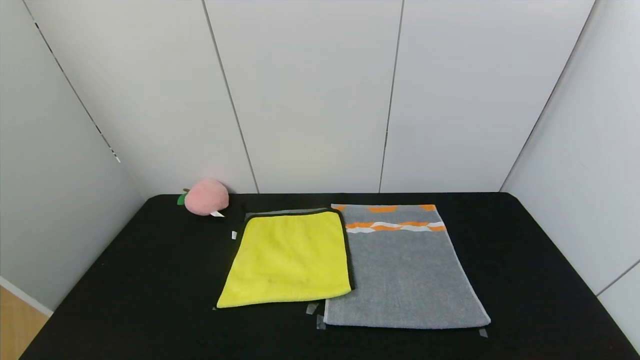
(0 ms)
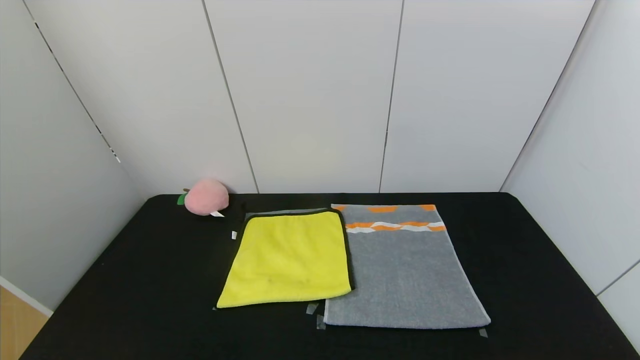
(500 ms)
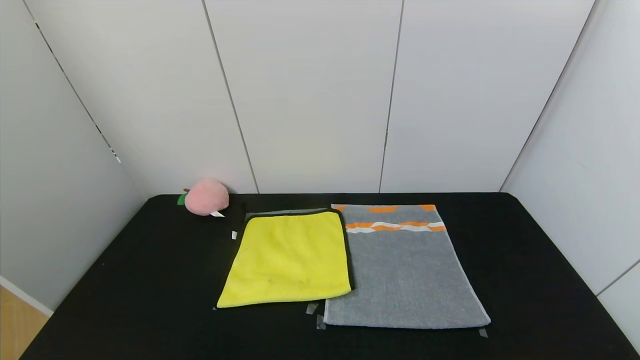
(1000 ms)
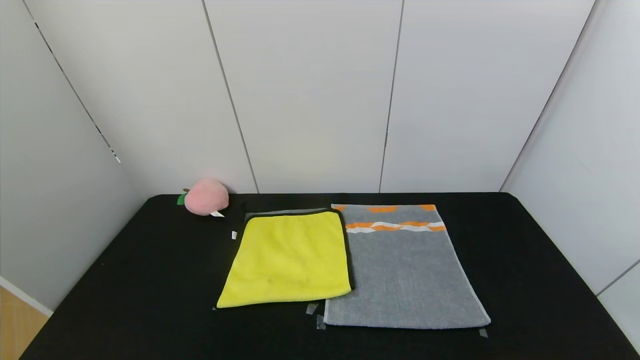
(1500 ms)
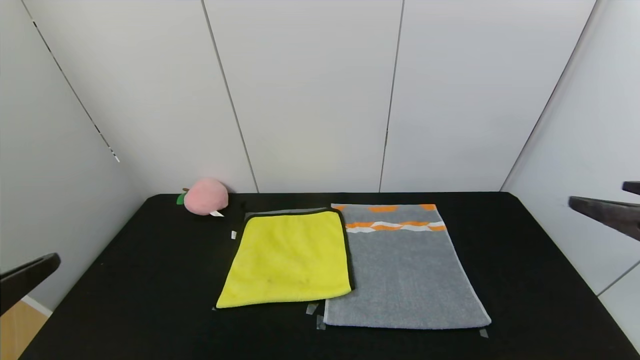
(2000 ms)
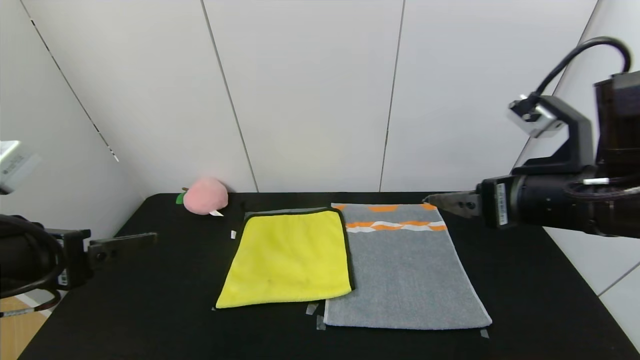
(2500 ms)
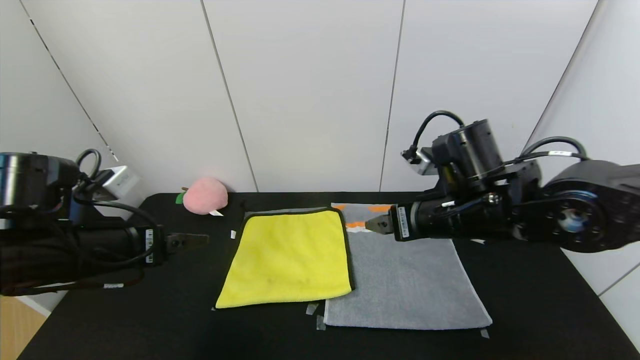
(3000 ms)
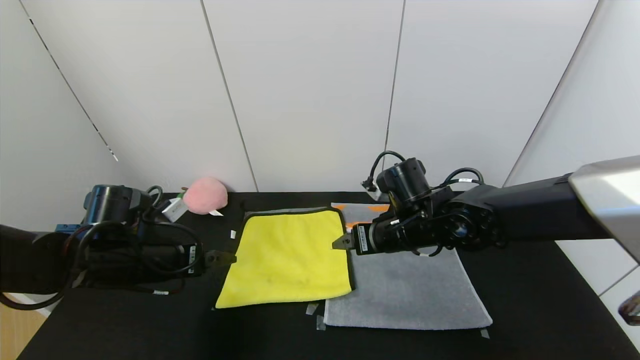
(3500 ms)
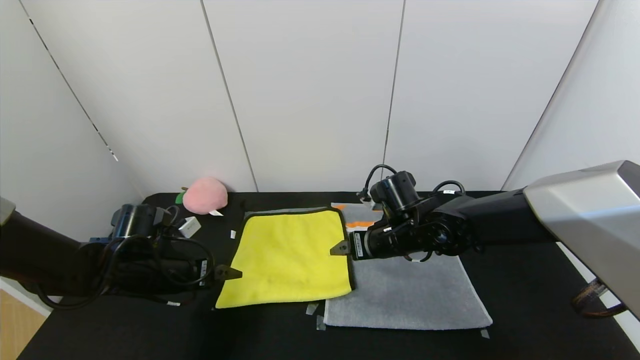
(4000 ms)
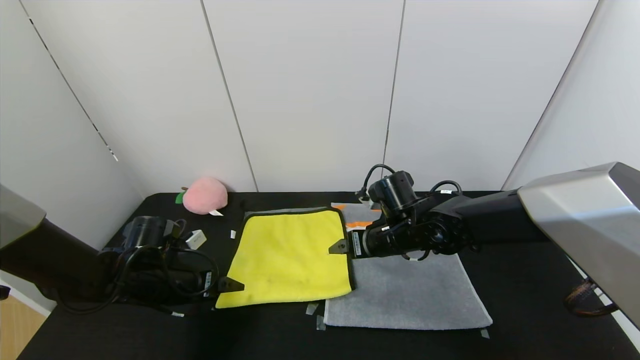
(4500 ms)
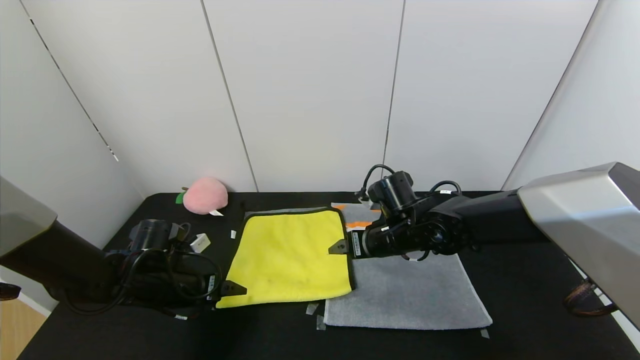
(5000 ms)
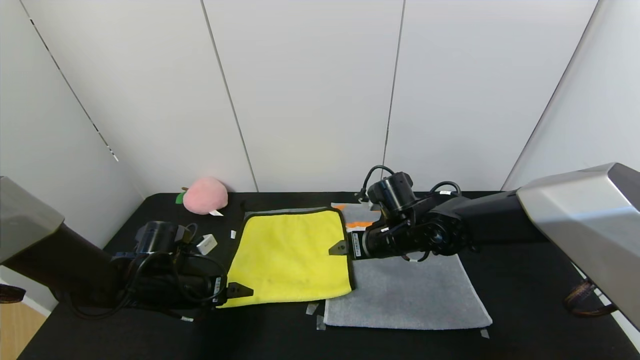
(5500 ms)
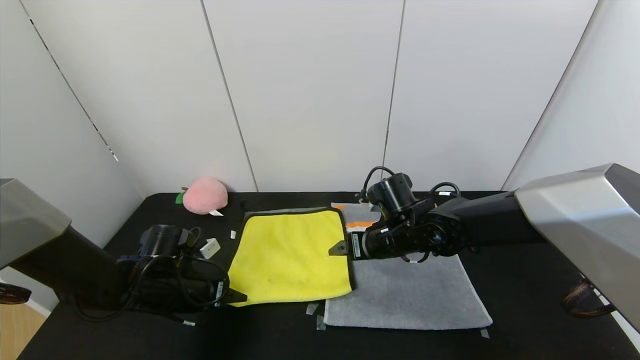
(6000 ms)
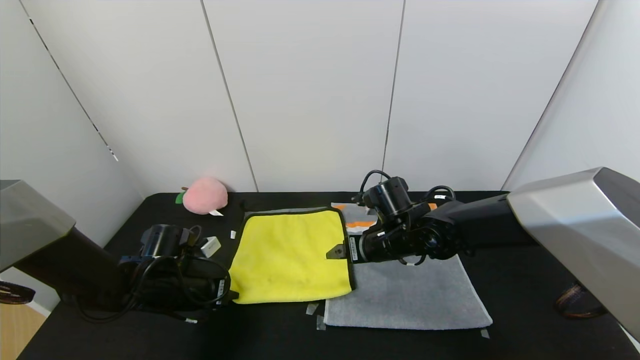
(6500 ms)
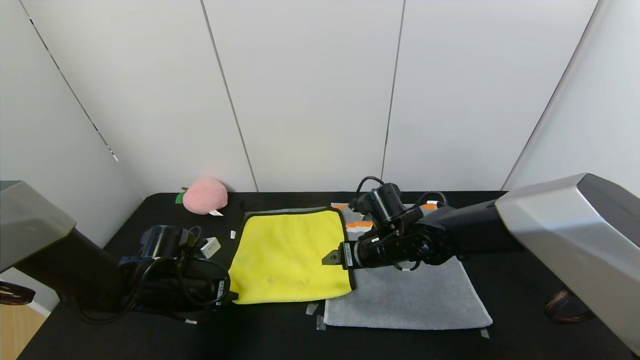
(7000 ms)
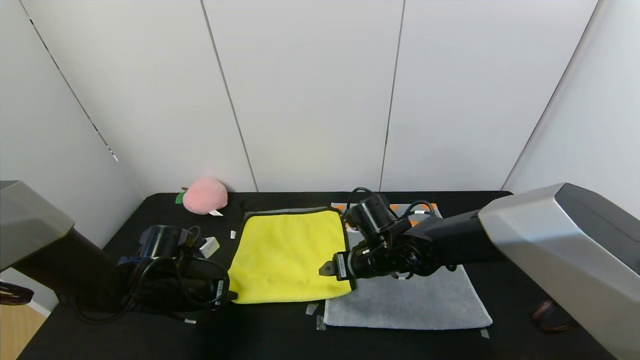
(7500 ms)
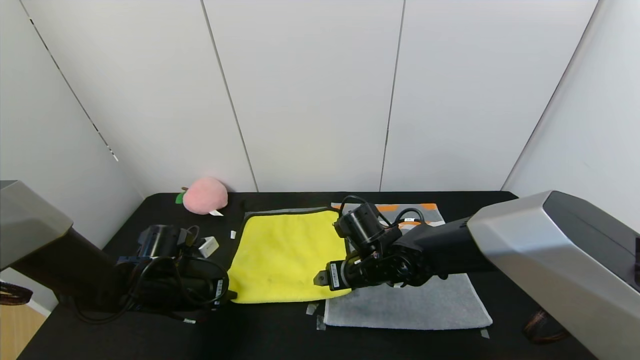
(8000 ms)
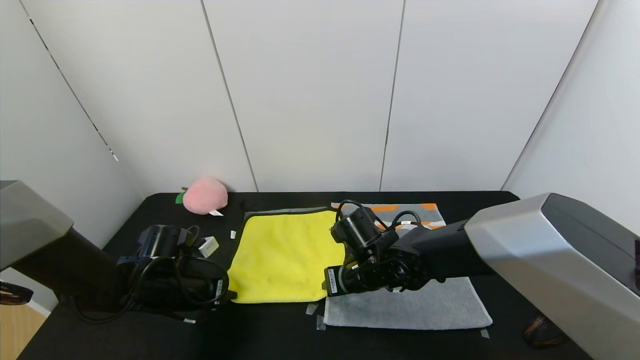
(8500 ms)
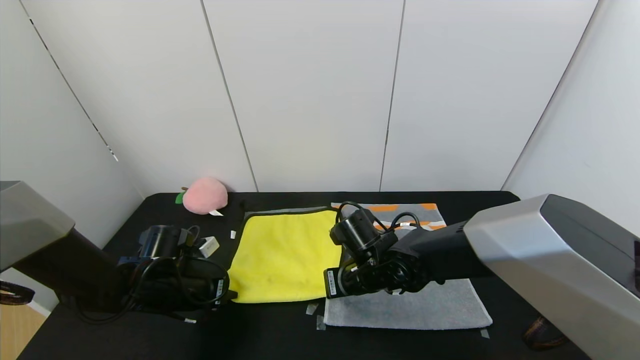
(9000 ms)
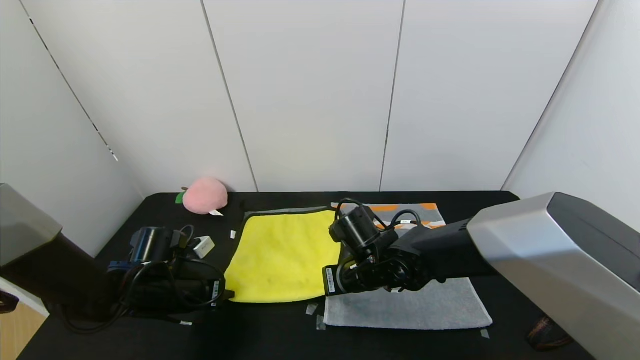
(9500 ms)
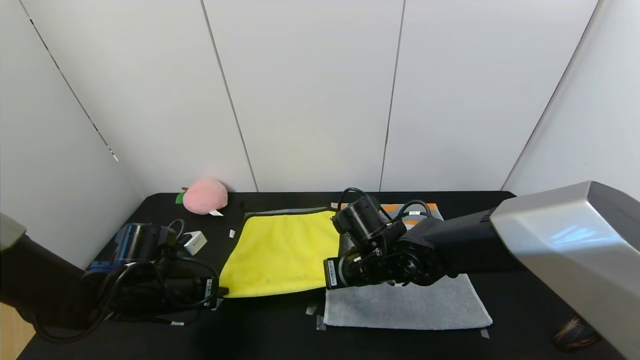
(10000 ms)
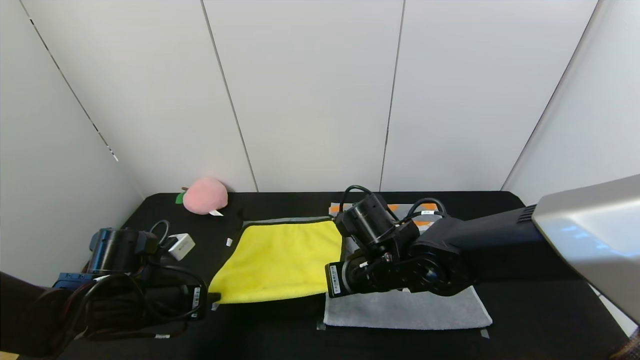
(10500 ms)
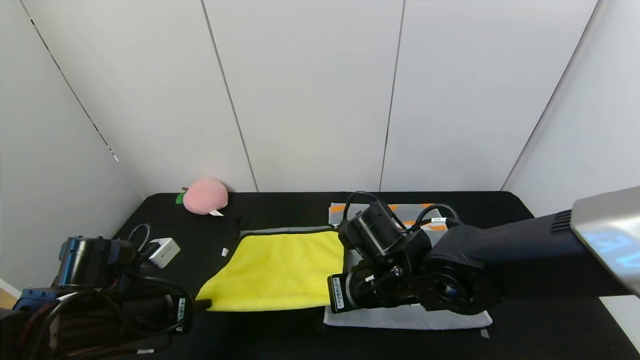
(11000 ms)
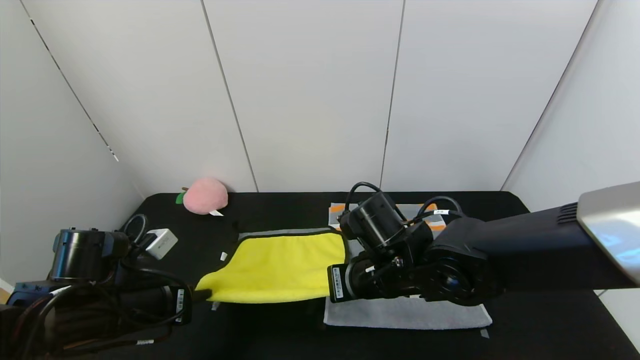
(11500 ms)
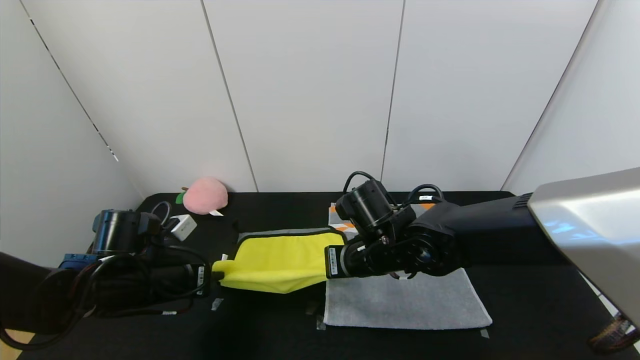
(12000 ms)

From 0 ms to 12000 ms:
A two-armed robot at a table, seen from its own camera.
Task of the whole recording: Use the gripper to fold the yellow towel and grey towel in half twice,then put the yellow towel on the grey towel.
From 0 ms to 2000 ms: The grippers both shift upward and forward by about 25 cm.
From 2000 ms to 4000 ms: The left gripper moves forward and downward, some 30 cm. The right gripper moves forward, to the left and downward, approximately 35 cm.
From 4000 ms to 6000 ms: The left gripper closes.
From 6000 ms to 8000 ms: The left gripper closes up; the right gripper moves approximately 5 cm.
From 8000 ms to 10000 ms: The right gripper closes up.

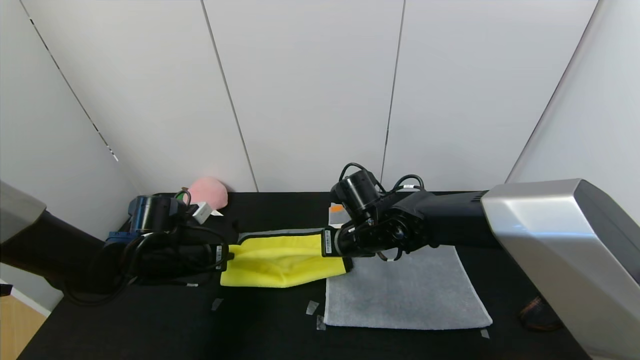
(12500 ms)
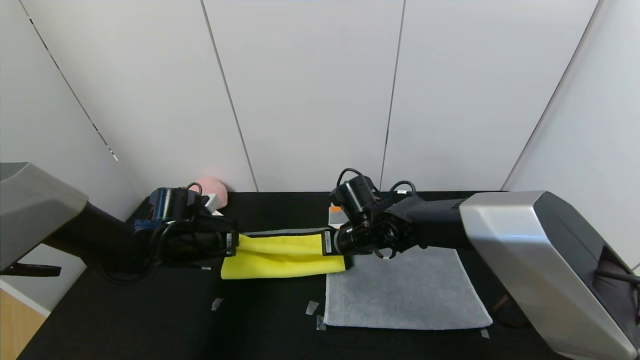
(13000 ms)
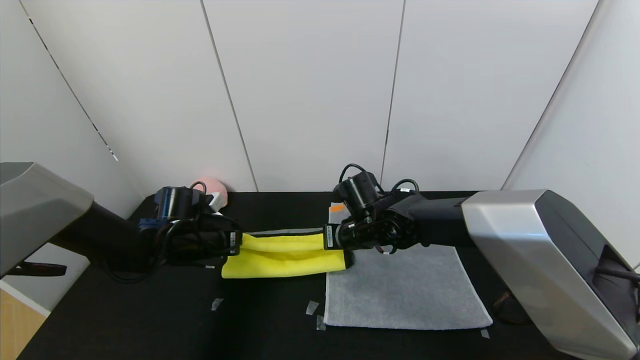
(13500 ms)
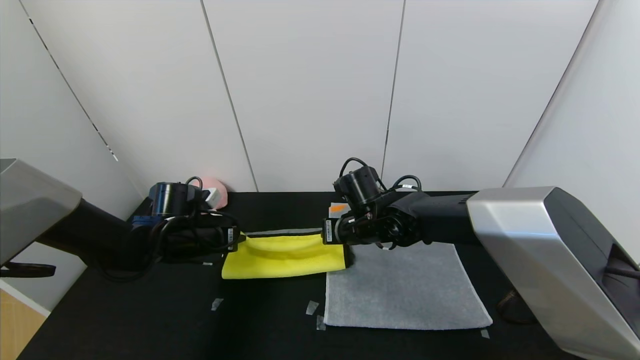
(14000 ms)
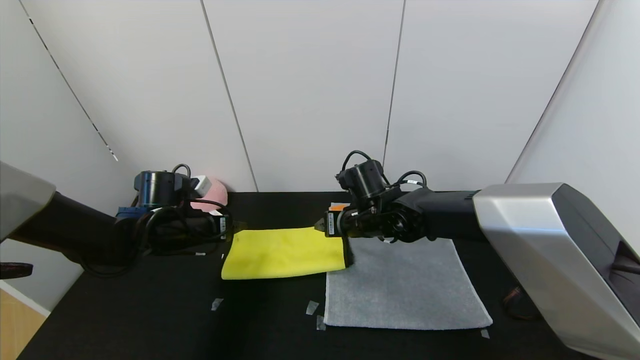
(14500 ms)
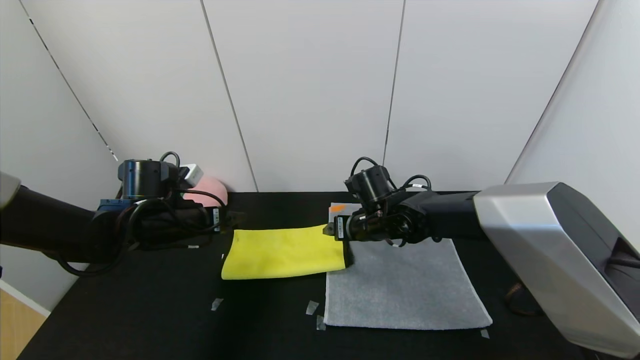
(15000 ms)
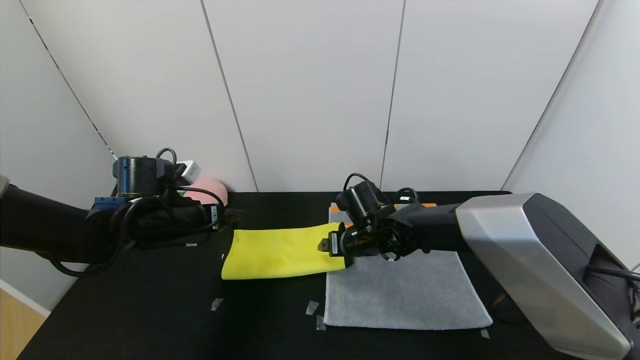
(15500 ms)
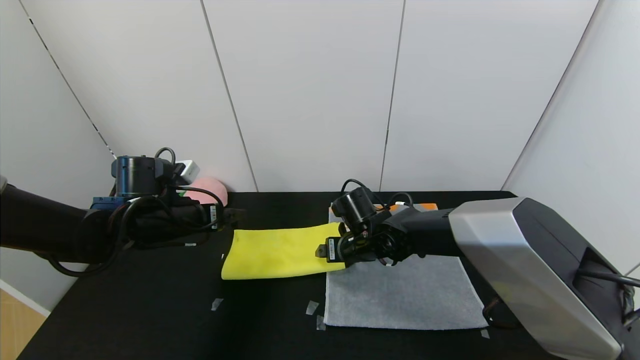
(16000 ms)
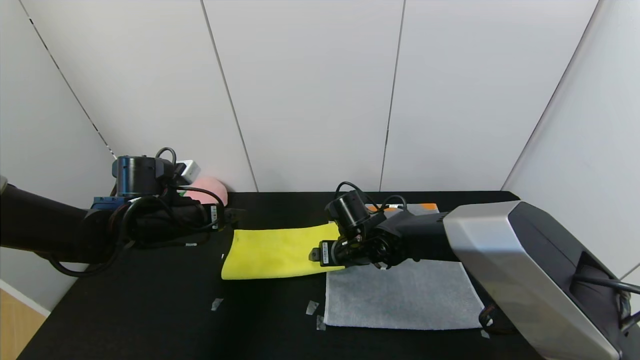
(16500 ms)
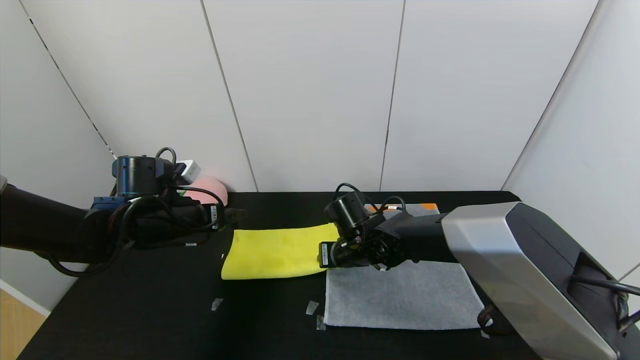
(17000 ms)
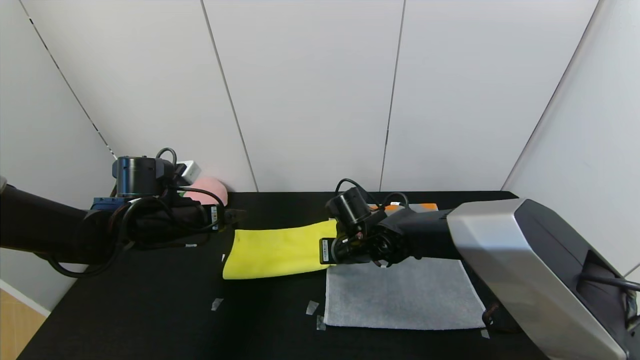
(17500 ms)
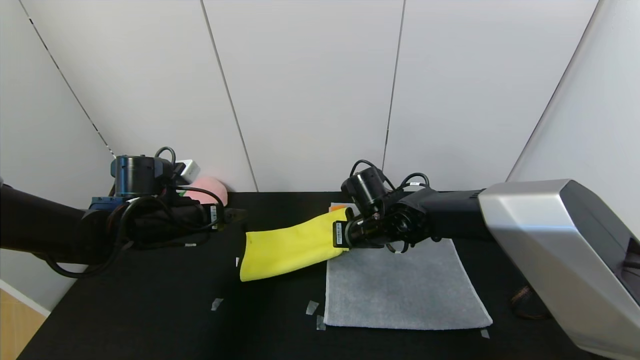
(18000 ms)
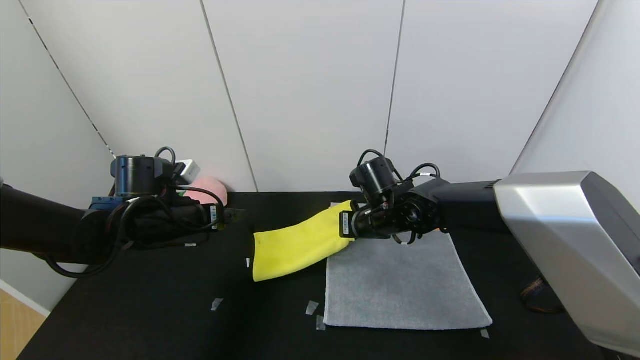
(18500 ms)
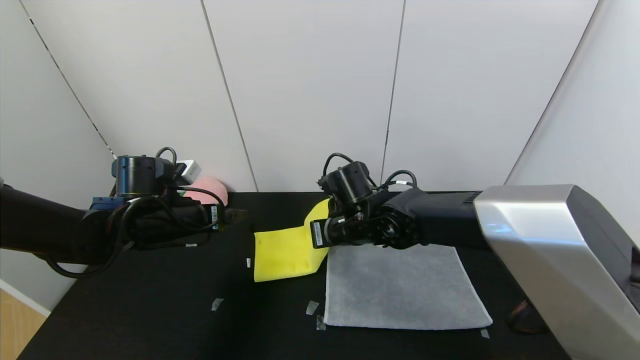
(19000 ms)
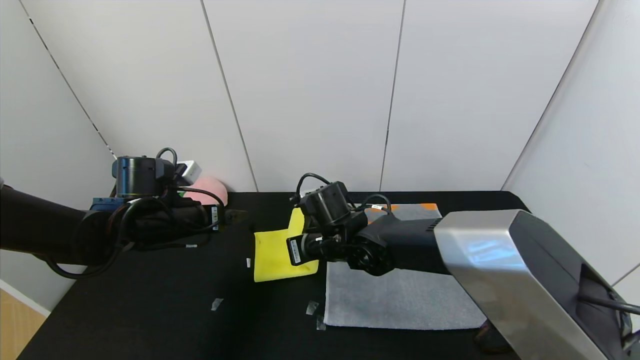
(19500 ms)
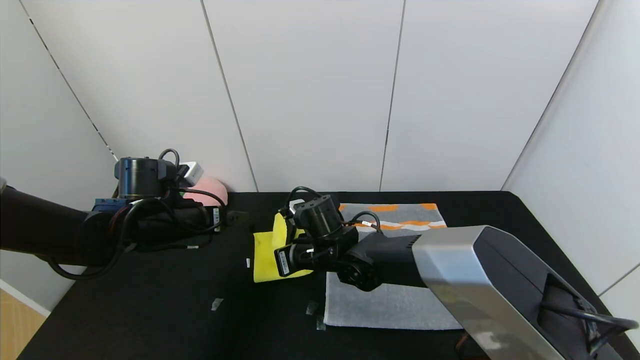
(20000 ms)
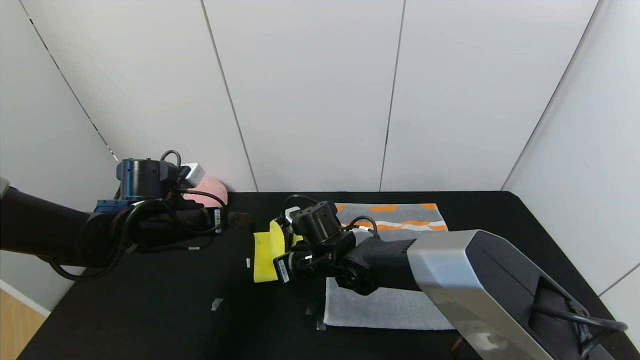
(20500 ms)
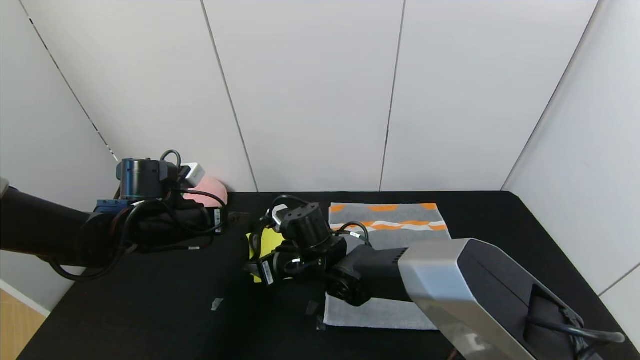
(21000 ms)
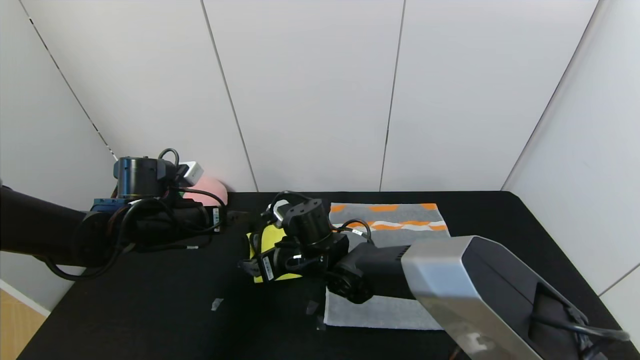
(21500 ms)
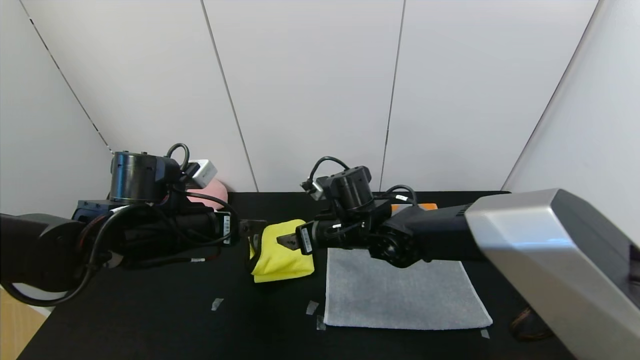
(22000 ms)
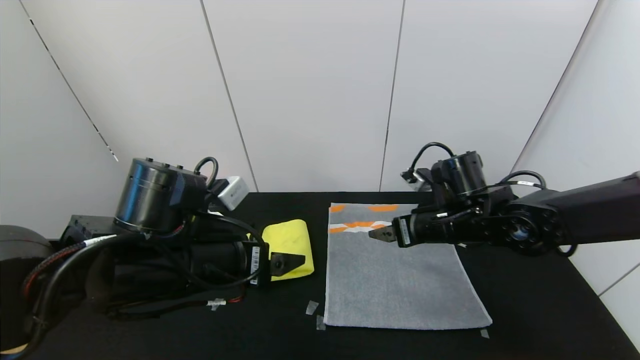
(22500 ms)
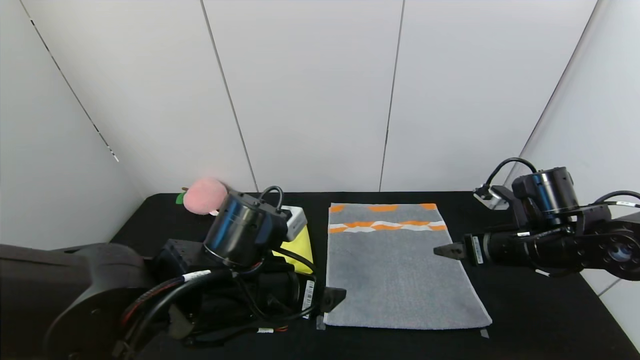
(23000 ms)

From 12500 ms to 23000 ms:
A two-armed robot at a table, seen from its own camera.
Task of the whole recording: Use the gripper to fold the yellow towel and grey towel in half twice,then put the yellow towel on the grey towel.
Step, from 14500 ms to 21000 ms: Fold the yellow towel from right to left with right gripper.
From 12500 ms to 14500 ms: The right gripper opens up. The left gripper opens.
From 14500 ms to 16500 ms: The right gripper goes roughly 5 cm downward.
From 16500 ms to 19000 ms: The right gripper moves upward, approximately 5 cm, and closes.
From 19000 ms to 21000 ms: The right gripper heads to the left and downward, covering approximately 10 cm, and opens.
From 21000 ms to 23000 ms: The left gripper travels to the right and backward by some 20 cm. The right gripper goes some 35 cm to the right.
